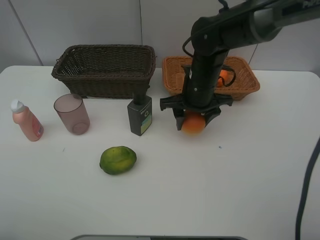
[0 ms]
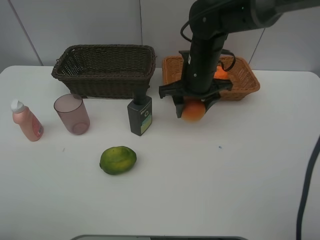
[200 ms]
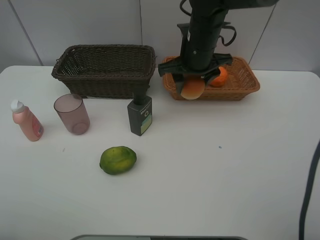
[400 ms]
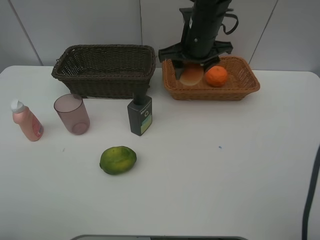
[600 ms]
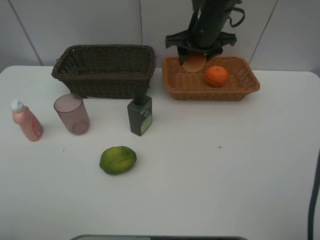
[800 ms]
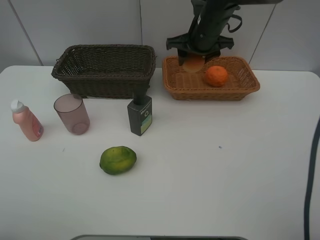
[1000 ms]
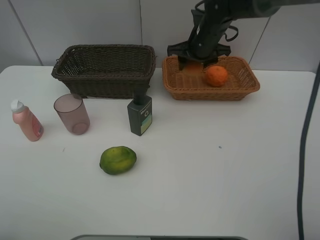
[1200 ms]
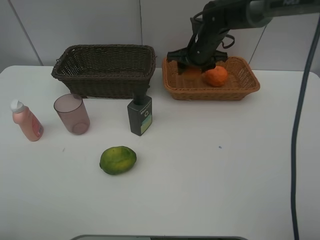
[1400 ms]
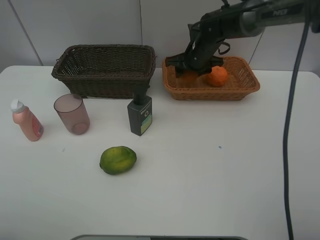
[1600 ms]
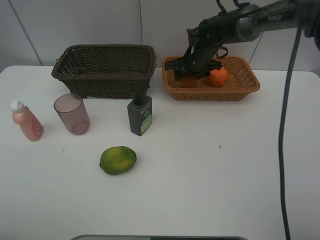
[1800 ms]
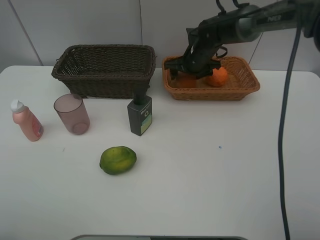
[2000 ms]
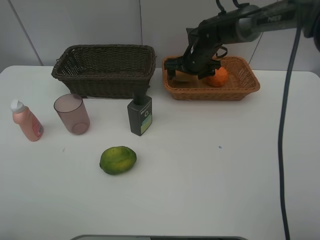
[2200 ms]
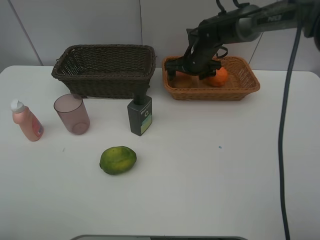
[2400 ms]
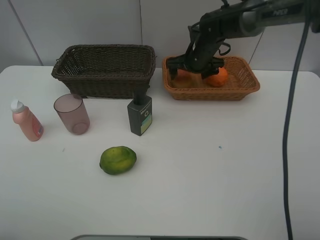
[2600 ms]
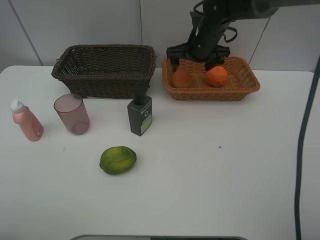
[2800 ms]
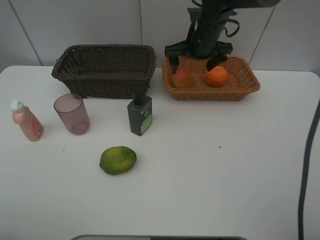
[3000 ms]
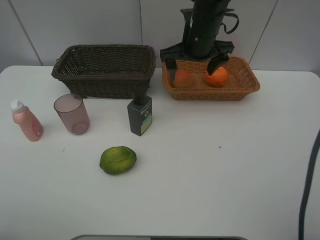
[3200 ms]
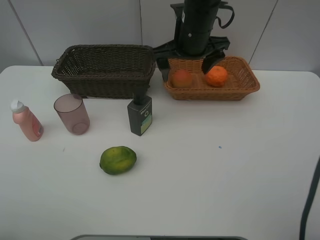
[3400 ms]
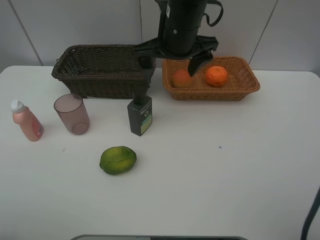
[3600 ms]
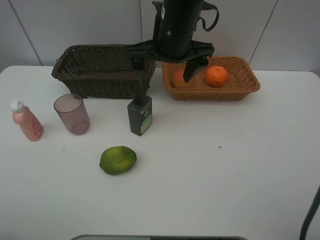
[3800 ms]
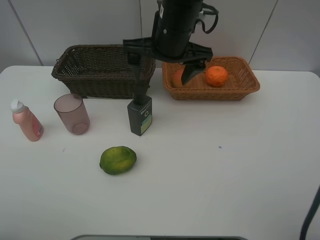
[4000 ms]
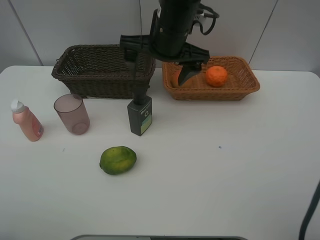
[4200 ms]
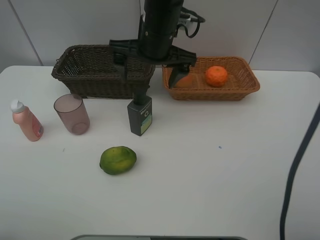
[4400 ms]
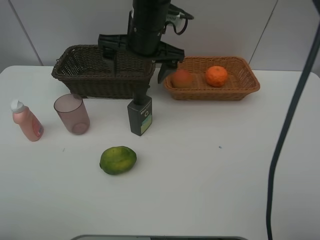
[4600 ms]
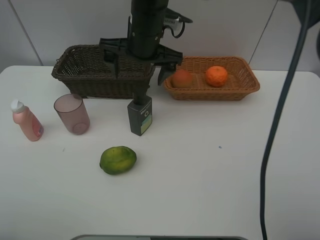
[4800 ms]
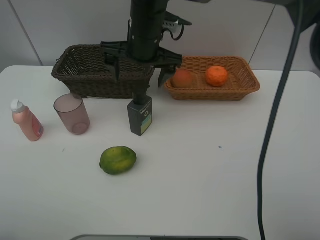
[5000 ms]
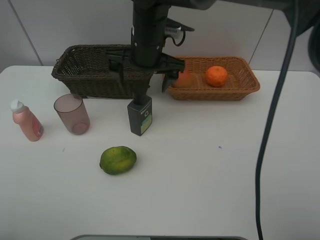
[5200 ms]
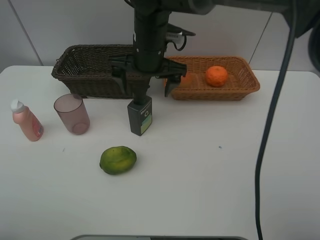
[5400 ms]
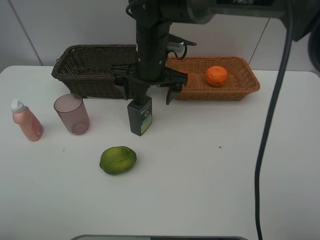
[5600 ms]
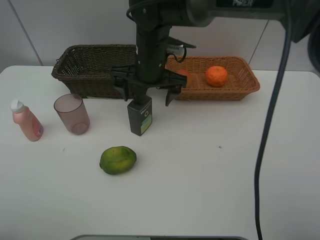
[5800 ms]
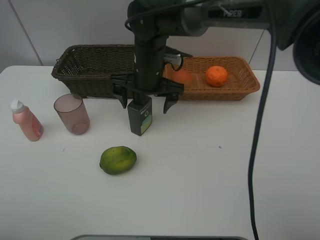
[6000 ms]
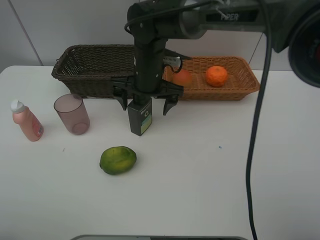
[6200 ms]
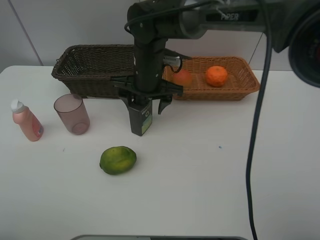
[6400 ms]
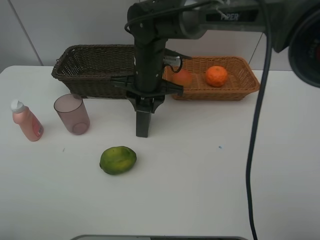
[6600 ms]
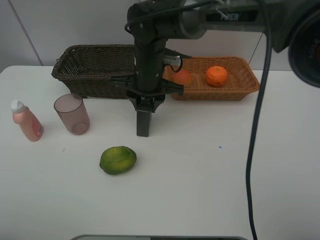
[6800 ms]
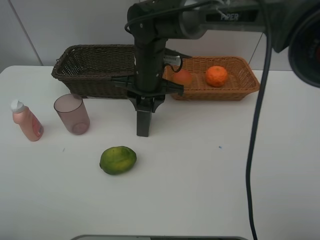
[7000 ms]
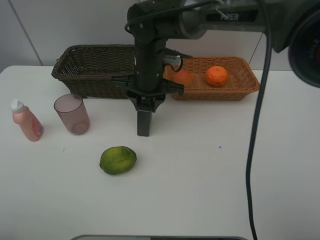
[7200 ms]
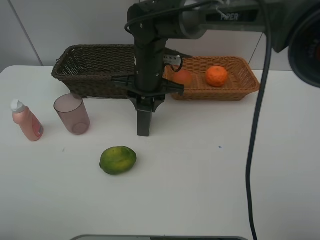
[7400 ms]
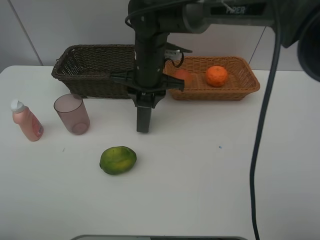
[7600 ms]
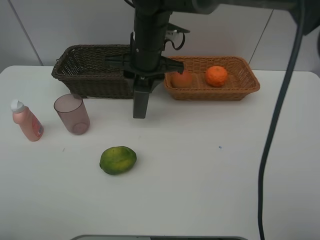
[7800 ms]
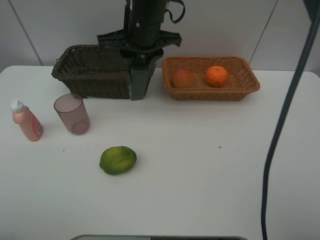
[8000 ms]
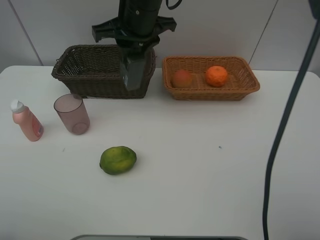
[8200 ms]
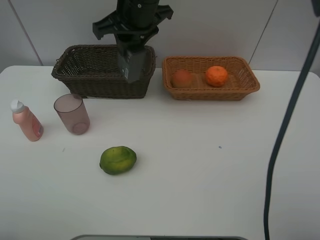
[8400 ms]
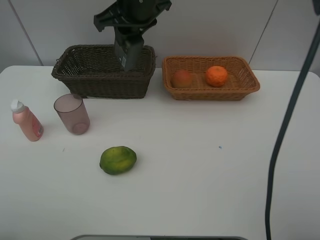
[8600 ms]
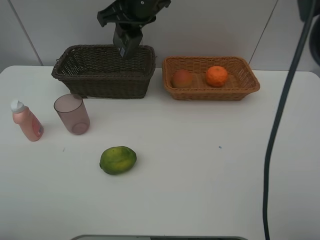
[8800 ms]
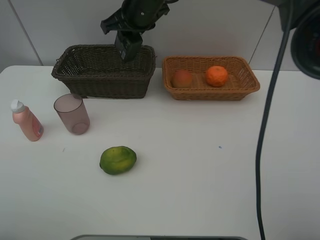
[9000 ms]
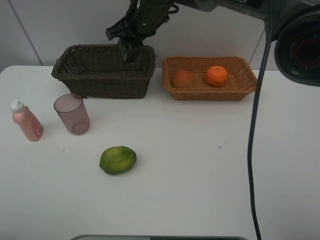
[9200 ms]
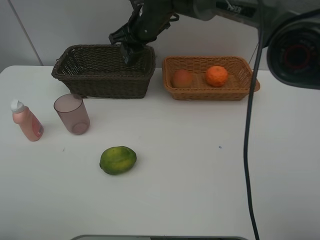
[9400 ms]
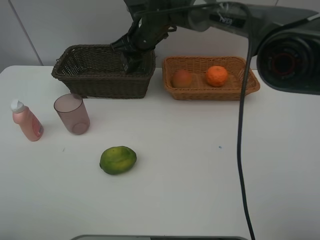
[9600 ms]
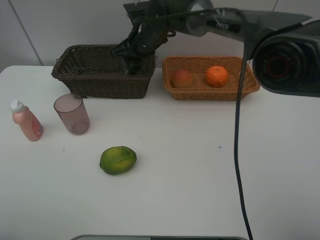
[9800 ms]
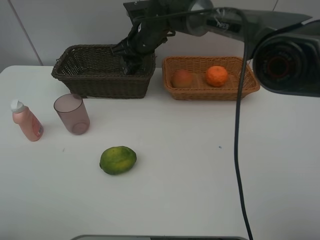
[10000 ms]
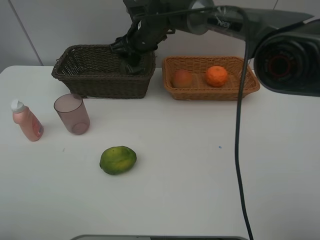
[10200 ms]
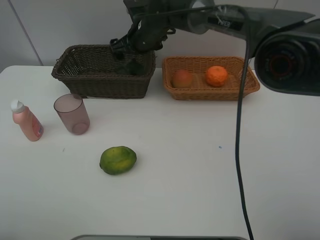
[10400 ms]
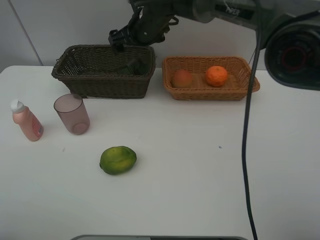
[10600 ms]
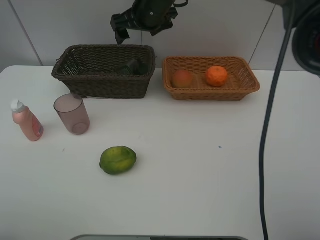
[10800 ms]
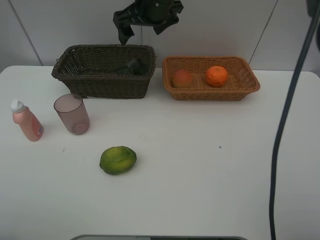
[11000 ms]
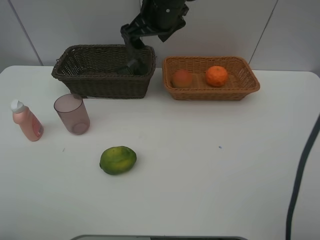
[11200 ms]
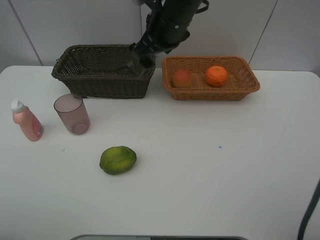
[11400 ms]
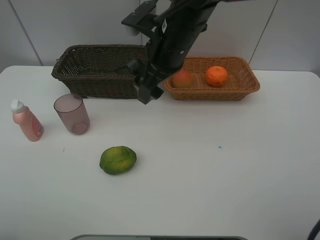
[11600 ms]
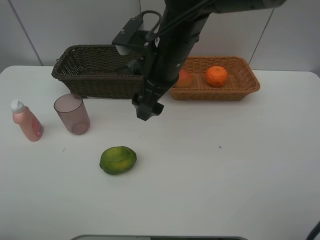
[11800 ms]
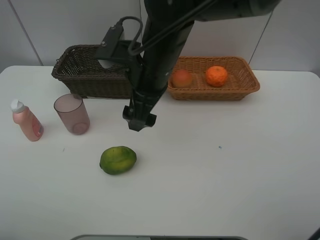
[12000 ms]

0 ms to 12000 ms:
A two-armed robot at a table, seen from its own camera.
Task of the whole recording: place multiple objects separately in different baskets.
0 ms to 1600 ms: The right gripper moves forward, about 15 cm.
1600 ms to 3000 ms: The right gripper is displaced upward by some 5 cm, and opens.
3000 ms to 4400 ms: The right gripper heads to the left and backward, covering approximately 15 cm.
4400 ms to 6000 ms: The right gripper goes roughly 10 cm downward.
6000 ms to 7600 ms: The right gripper closes up.
7600 ms to 9000 ms: The right gripper moves upward and forward, about 10 cm.
9000 ms to 10400 ms: The right gripper goes approximately 5 cm downward, and opens.
10400 ms to 12000 ms: The right gripper goes some 20 cm backward.

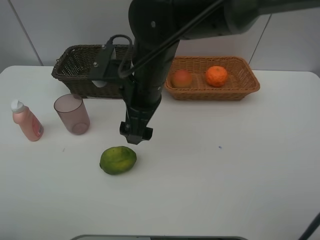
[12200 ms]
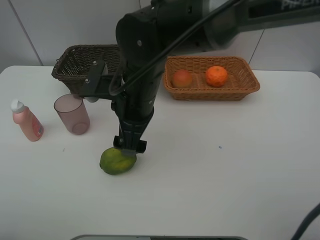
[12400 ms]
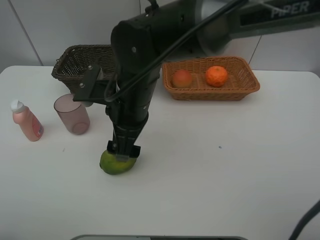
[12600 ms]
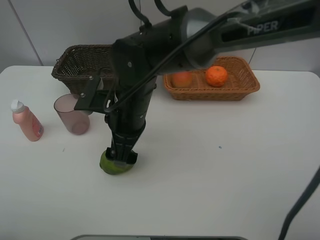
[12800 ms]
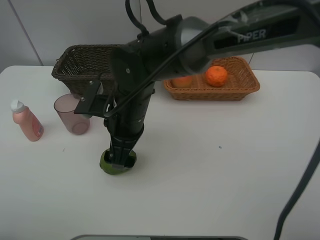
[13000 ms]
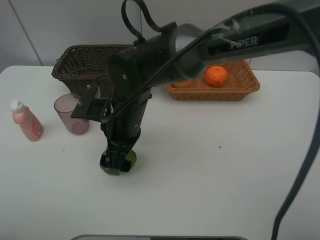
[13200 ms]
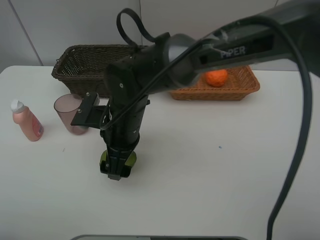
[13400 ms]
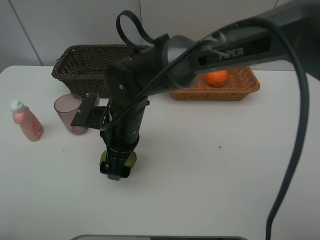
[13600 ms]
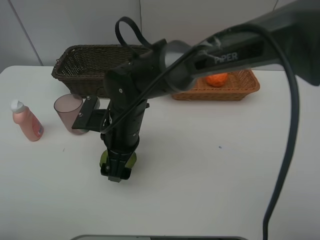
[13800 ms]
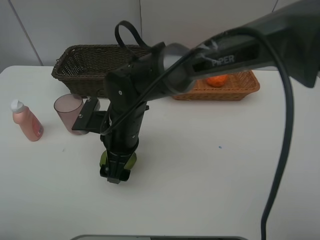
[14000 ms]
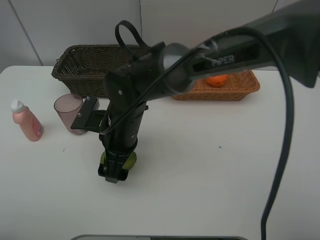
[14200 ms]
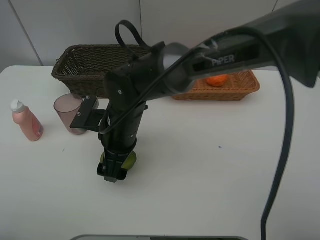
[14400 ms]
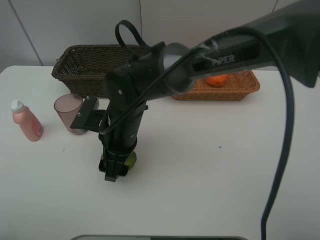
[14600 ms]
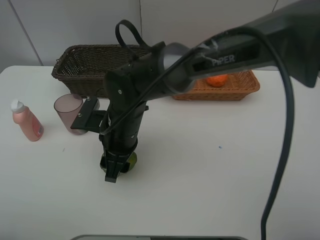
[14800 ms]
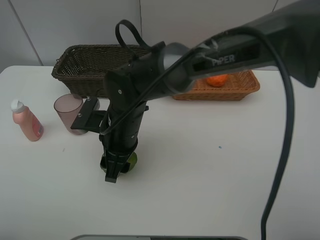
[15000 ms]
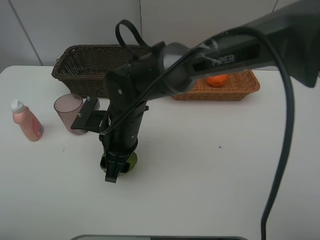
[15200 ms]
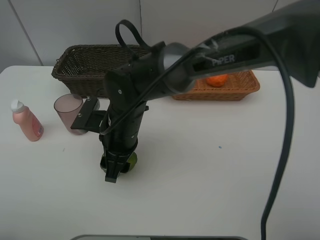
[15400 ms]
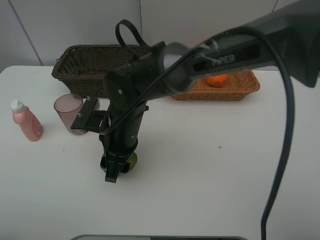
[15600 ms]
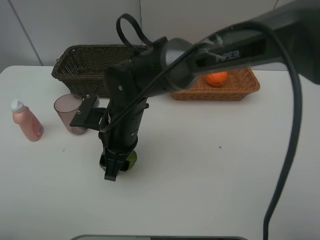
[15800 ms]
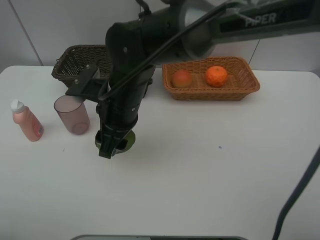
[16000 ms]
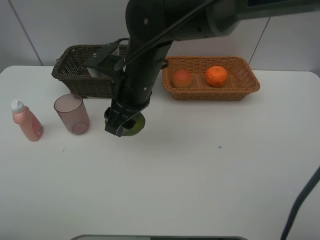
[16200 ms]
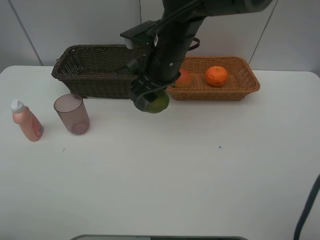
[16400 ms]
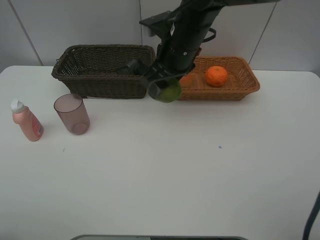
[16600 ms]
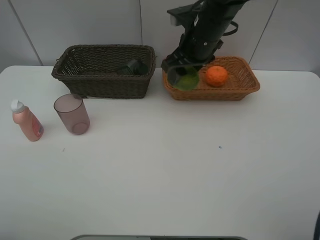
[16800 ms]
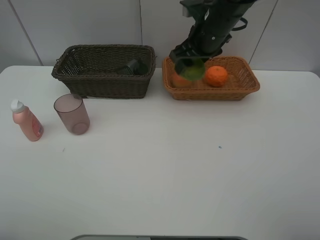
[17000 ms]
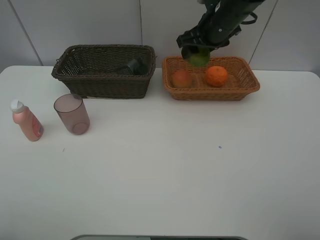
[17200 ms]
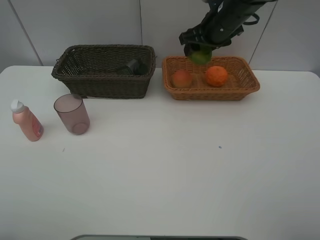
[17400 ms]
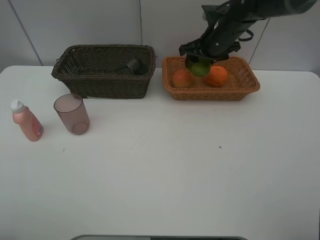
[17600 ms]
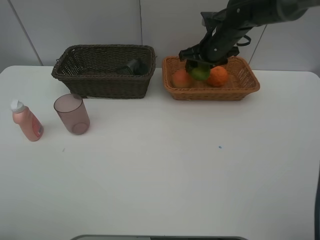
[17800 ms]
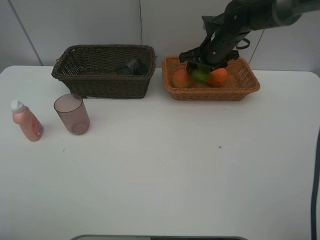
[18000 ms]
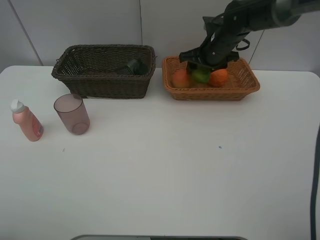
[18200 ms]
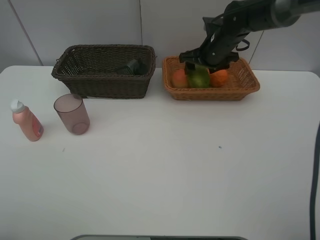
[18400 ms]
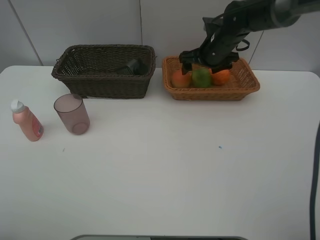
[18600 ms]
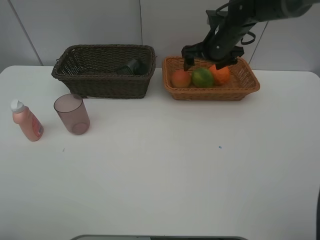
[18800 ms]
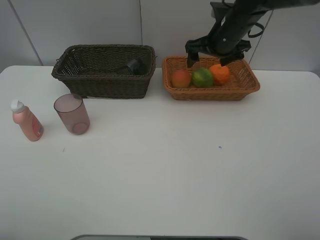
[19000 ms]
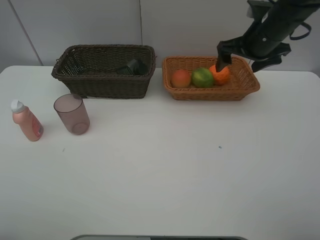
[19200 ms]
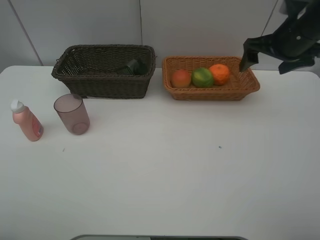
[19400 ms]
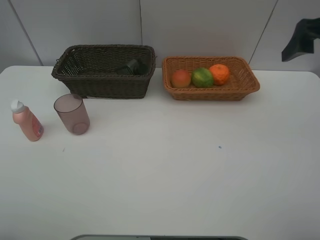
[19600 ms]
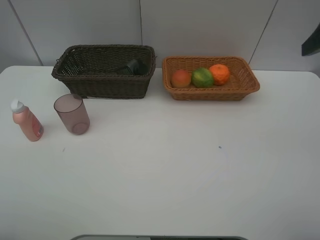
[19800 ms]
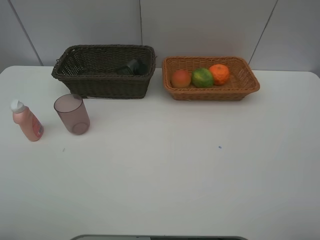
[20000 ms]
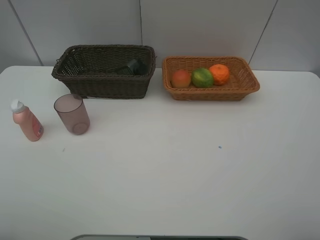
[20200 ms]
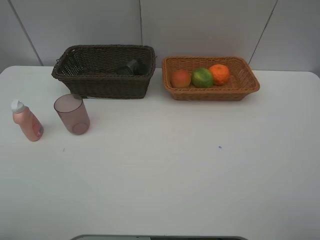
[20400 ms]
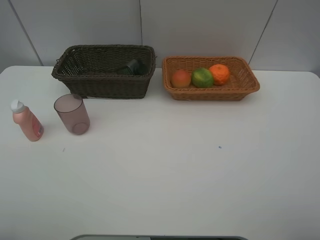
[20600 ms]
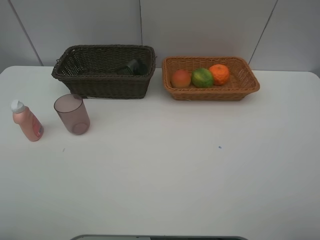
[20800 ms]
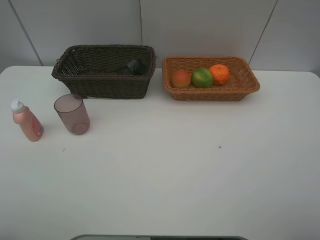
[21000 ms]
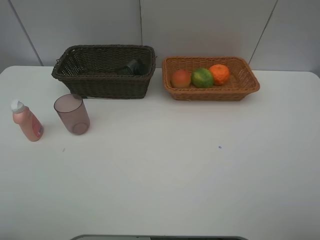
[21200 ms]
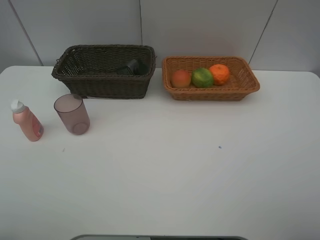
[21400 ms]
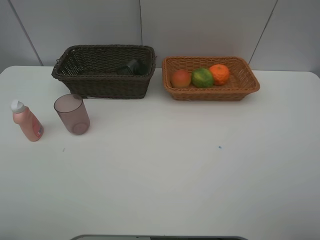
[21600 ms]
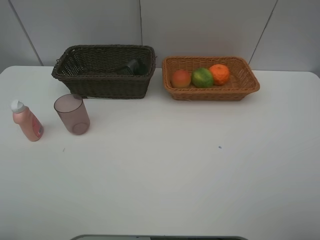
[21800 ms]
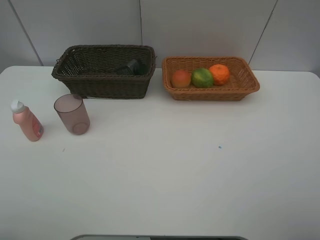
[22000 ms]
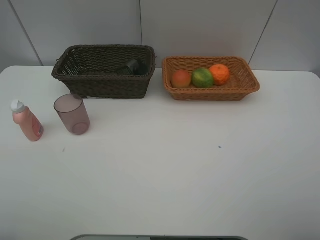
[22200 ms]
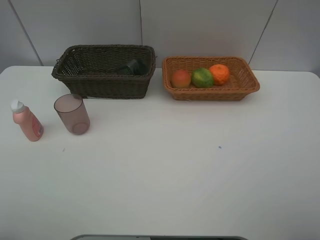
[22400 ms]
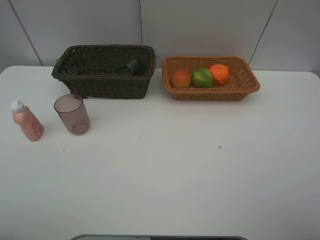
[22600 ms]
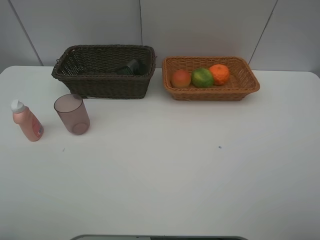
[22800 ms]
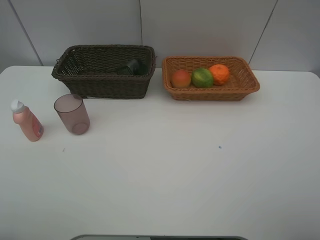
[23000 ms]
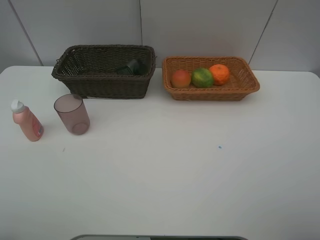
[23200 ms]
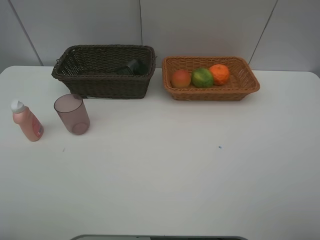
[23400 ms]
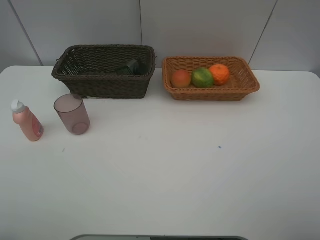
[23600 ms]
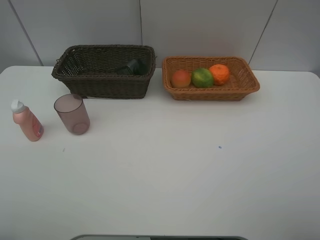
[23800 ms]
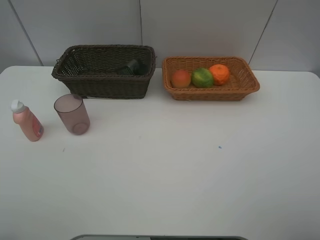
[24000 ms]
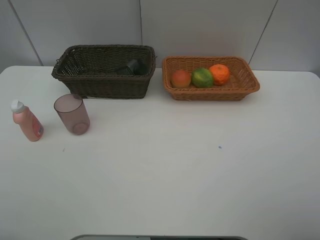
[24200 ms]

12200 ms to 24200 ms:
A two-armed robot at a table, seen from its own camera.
Task of the whole recording: place multiple objects separately in different baskets.
12200 ms to 13800 ms: The right gripper goes roughly 10 cm downward.
13800 ms to 15200 ms: The right gripper closes.
15200 ms to 16600 ms: The right gripper moves upward, to the right and forward, about 20 cm.
16600 ms to 18200 ms: The right gripper travels forward, to the right and downward by about 15 cm.
18200 ms to 19800 ms: The right gripper moves backward, upward and to the right, roughly 35 cm, and opens.
